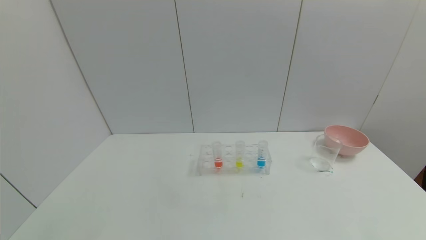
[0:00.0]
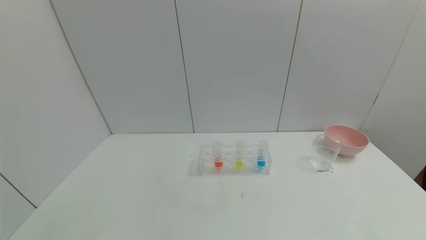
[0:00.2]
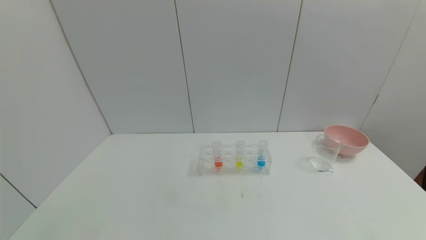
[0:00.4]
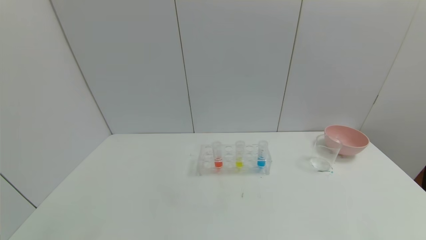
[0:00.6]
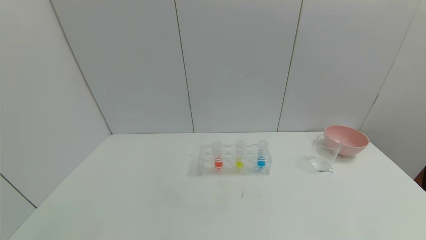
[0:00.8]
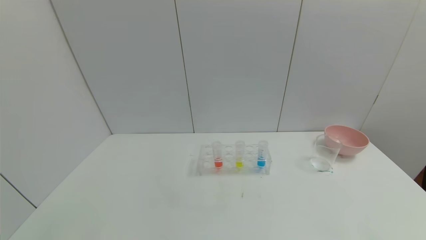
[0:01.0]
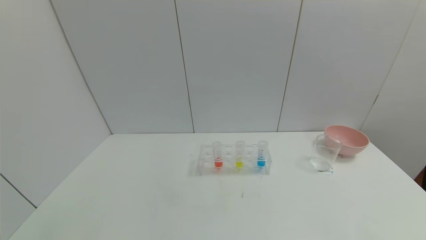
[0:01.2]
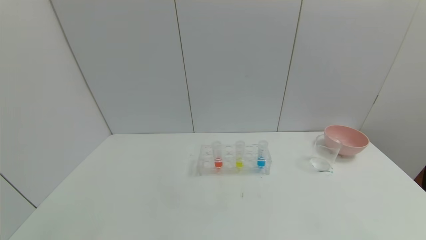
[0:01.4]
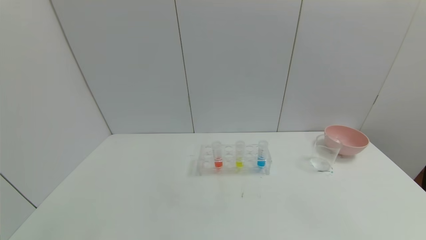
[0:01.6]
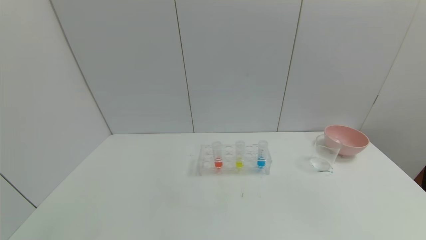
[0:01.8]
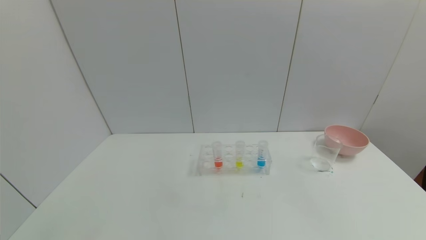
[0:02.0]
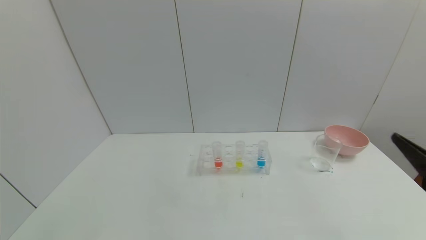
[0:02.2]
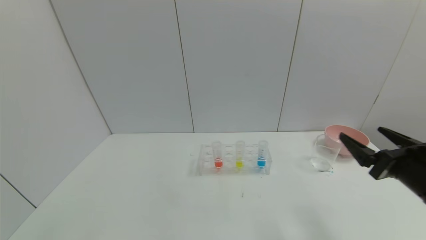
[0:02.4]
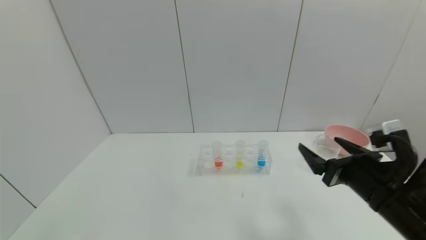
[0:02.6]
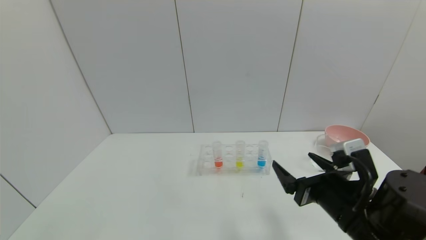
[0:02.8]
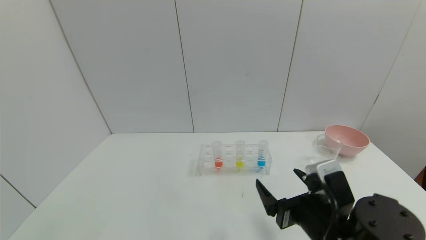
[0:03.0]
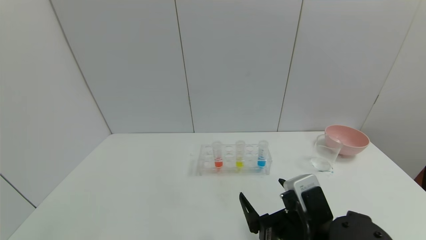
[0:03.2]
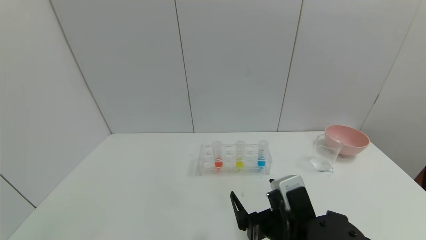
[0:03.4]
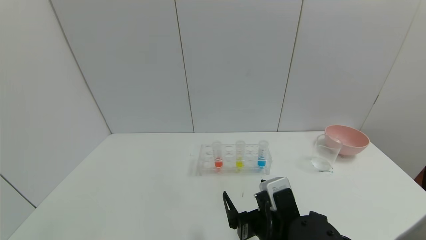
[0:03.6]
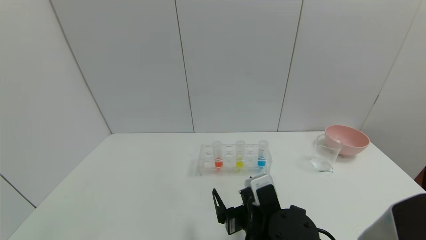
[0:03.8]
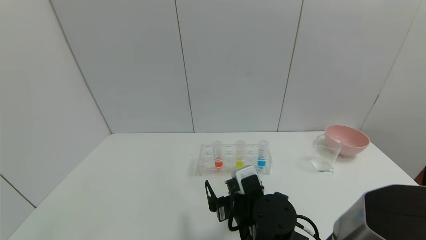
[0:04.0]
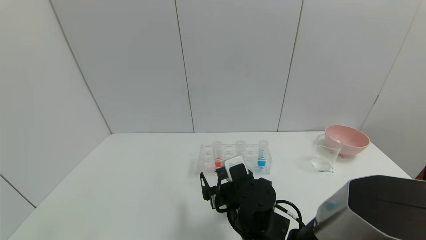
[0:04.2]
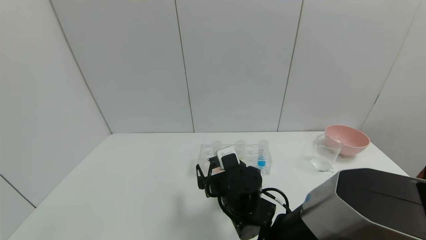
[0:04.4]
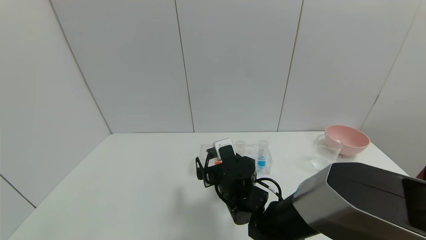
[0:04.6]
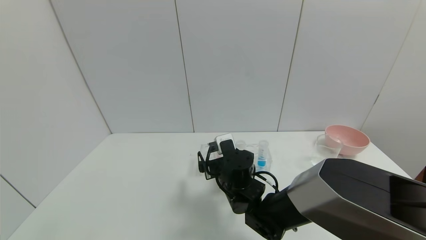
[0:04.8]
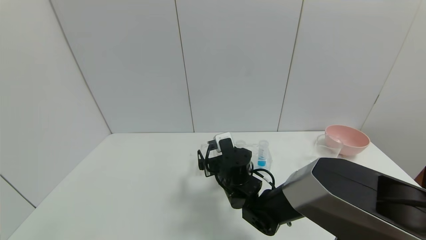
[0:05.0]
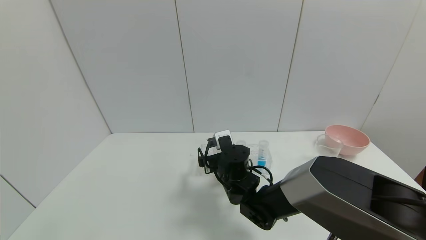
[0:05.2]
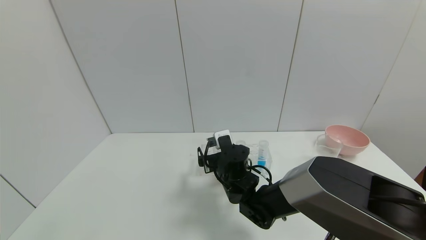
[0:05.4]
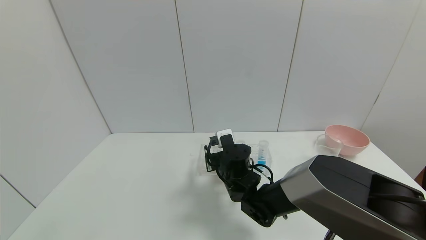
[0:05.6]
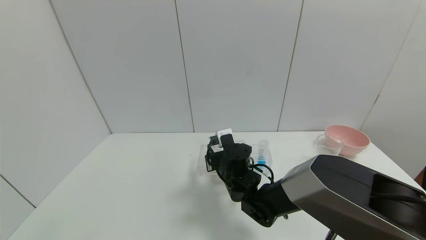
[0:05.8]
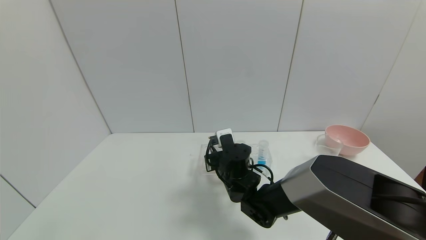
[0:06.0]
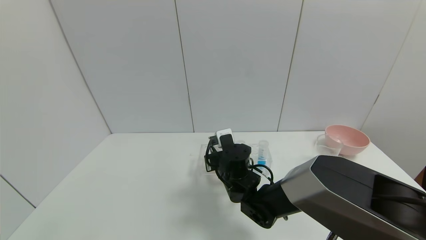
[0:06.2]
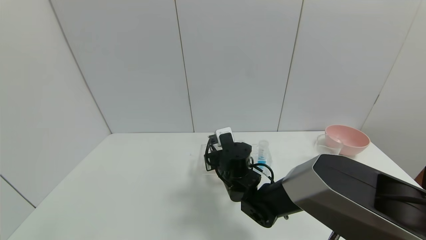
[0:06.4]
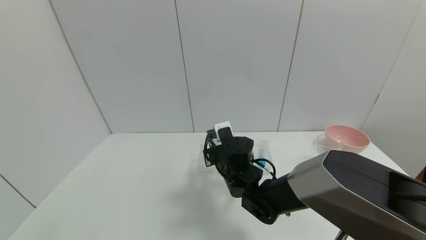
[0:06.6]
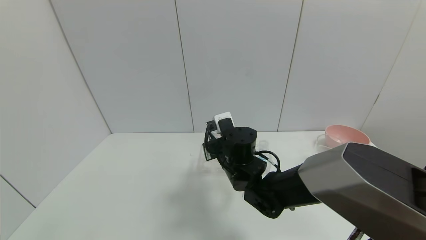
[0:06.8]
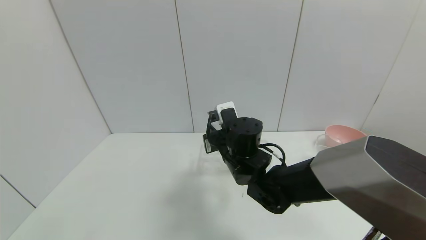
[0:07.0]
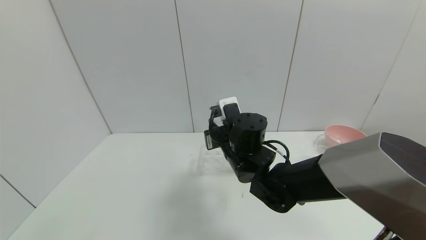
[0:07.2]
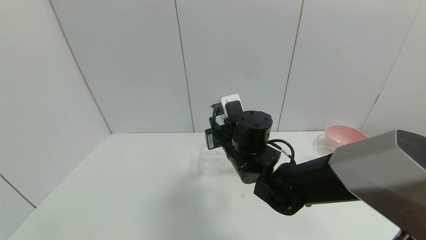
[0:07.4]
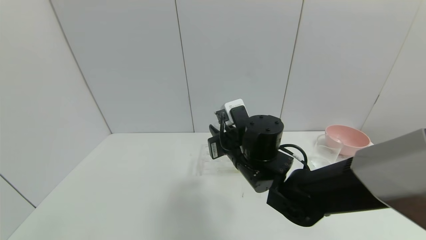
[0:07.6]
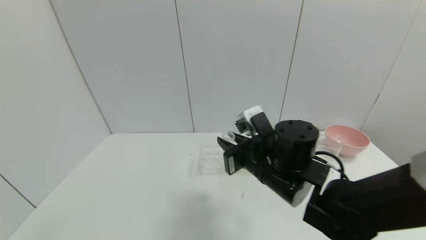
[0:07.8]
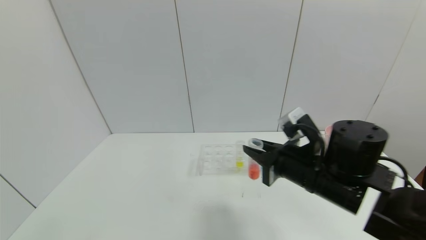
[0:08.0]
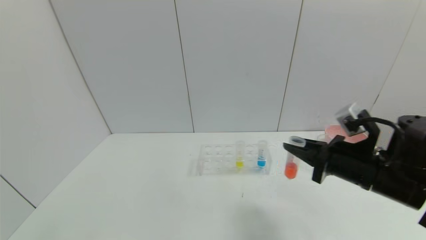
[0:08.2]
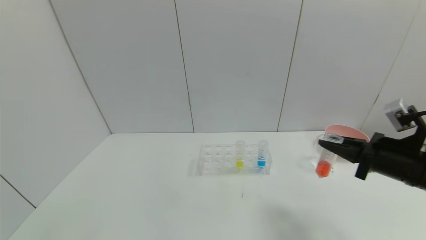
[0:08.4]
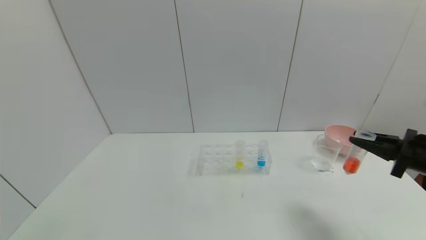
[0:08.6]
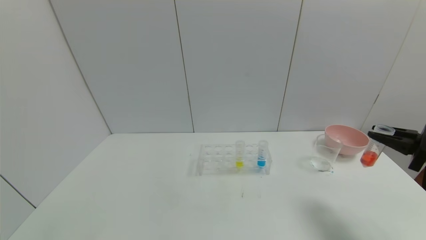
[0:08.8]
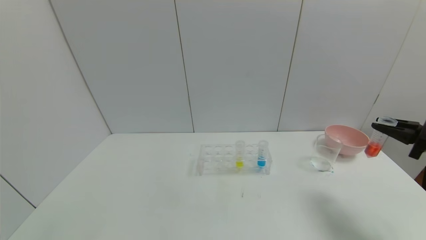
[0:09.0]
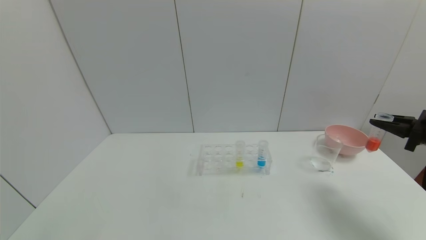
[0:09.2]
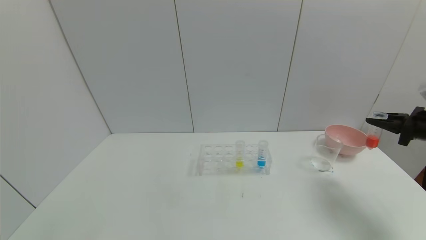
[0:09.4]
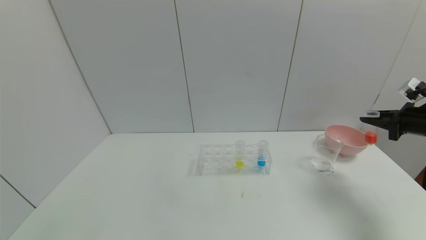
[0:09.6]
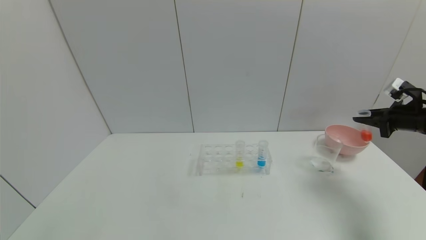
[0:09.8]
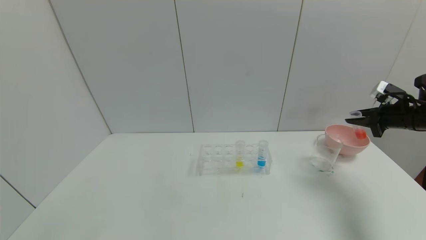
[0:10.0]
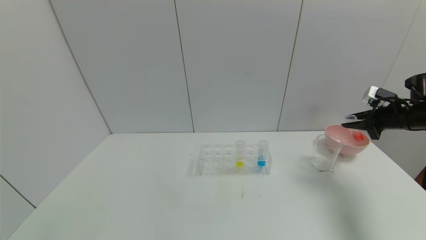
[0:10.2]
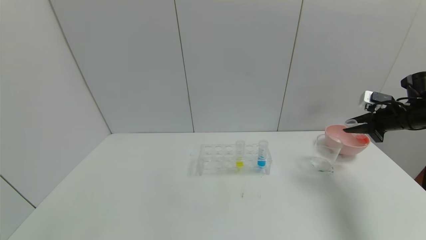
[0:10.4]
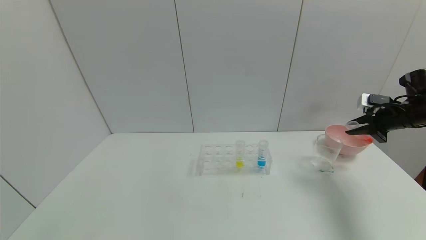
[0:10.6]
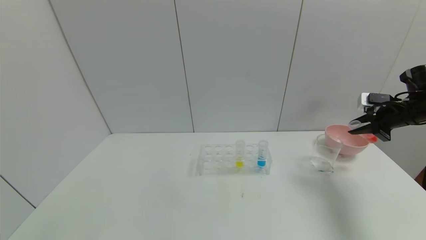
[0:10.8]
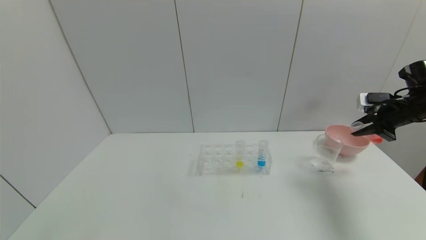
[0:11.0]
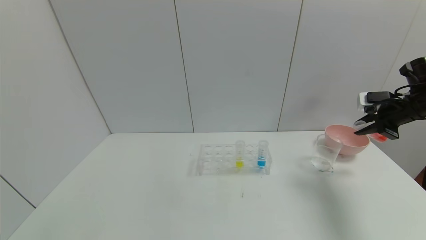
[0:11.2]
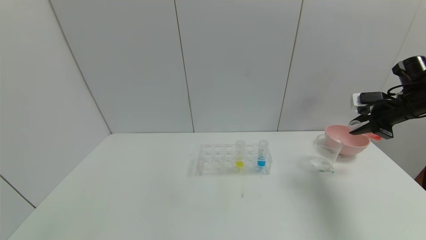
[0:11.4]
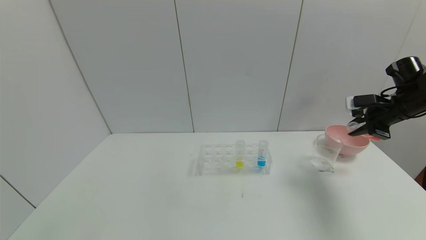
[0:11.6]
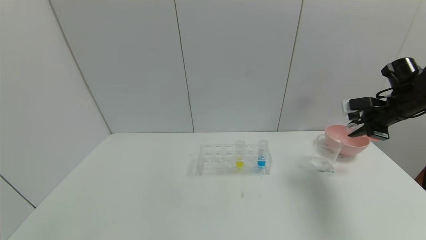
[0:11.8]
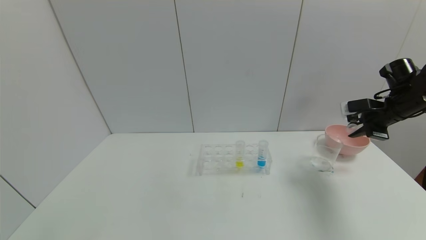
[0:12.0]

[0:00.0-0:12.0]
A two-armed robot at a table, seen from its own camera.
Task of the whole recording: pick up the test tube with red pigment and the test tube with blue pigment by grippers and pour them into the container.
Step, 0:00.0 to 0:06.2: Grasp the red reagent with the right gripper.
0:01.6 to 0:03.0: The right gripper travels to the left and forward by approximately 25 cm.
0:03.0 to 0:04.4: The right gripper moves to the left and forward, some 15 cm.
0:04.4 to 0:06.0: The right gripper moves forward, roughly 5 cm, and closes its fingers.
0:06.0 to 0:07.6: The right gripper shifts roughly 10 cm upward.
0:07.6 to 0:09.0: The right gripper heads to the right, covering roughly 40 cm.
0:09.0 to 0:10.4: The right gripper shifts about 15 cm forward.
0:10.4 to 0:12.0: The right gripper shifts by some 5 cm.

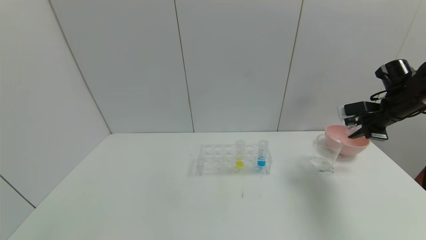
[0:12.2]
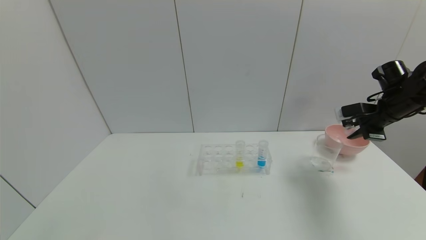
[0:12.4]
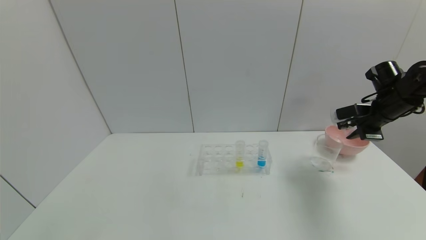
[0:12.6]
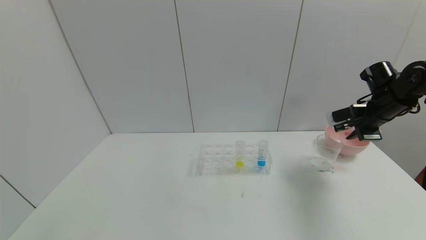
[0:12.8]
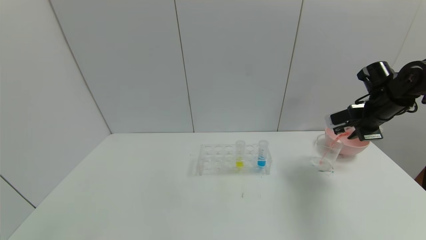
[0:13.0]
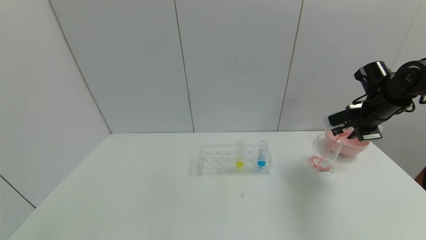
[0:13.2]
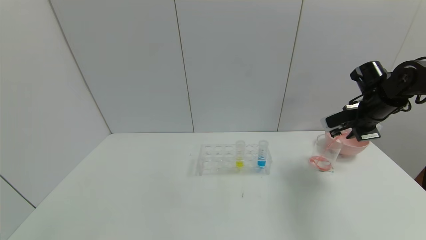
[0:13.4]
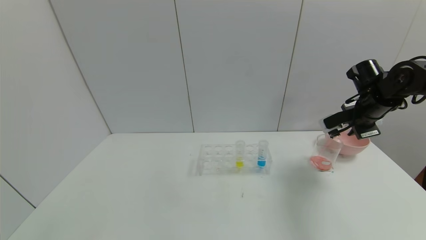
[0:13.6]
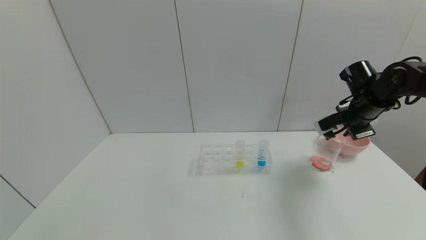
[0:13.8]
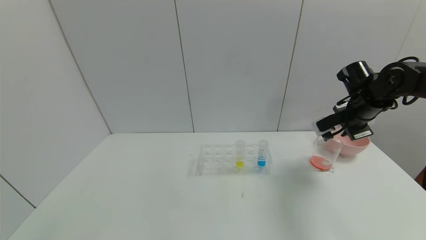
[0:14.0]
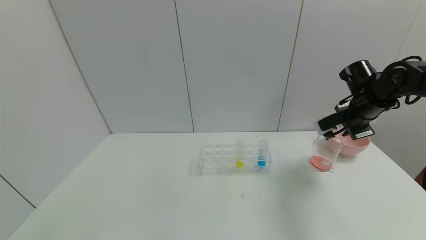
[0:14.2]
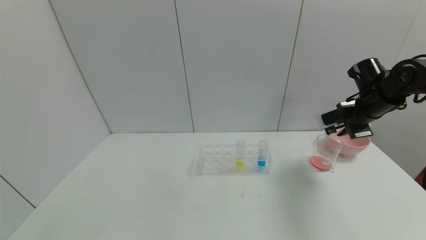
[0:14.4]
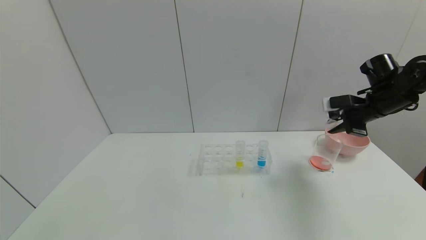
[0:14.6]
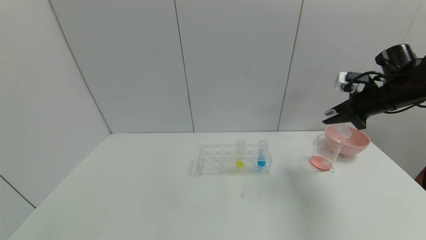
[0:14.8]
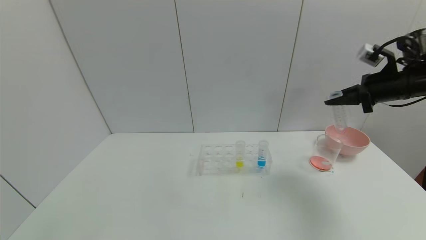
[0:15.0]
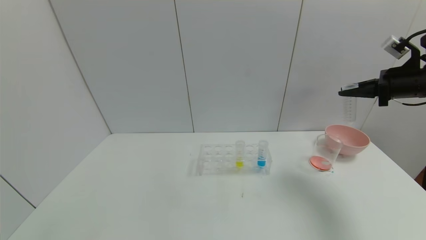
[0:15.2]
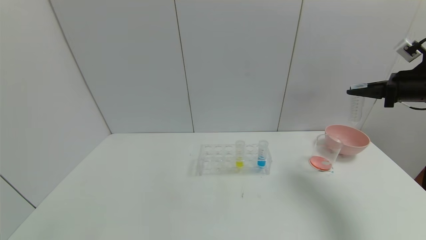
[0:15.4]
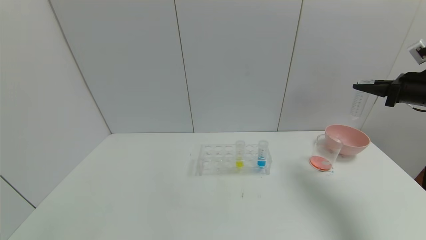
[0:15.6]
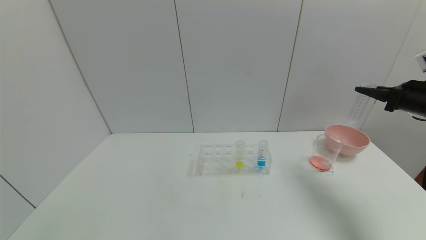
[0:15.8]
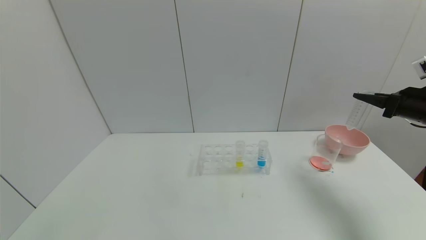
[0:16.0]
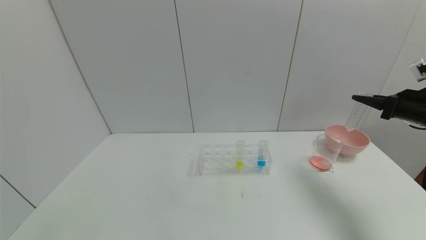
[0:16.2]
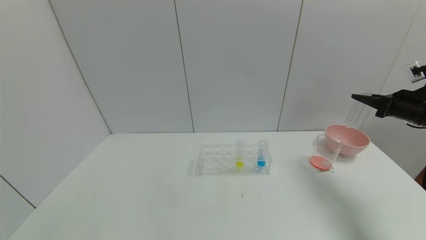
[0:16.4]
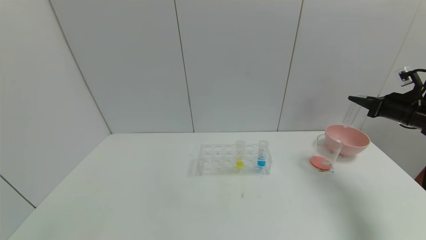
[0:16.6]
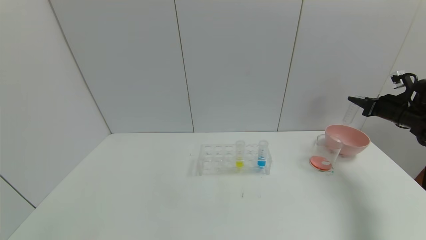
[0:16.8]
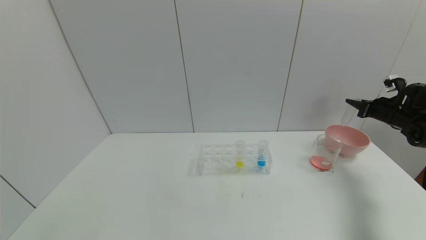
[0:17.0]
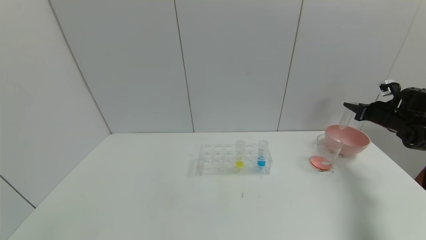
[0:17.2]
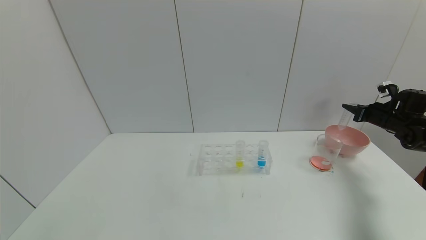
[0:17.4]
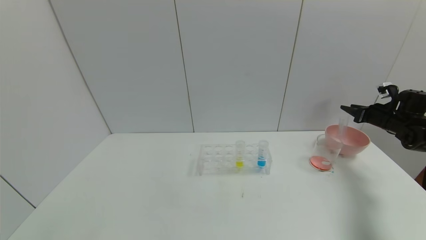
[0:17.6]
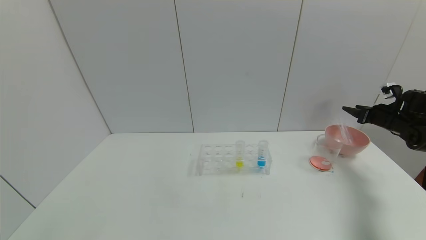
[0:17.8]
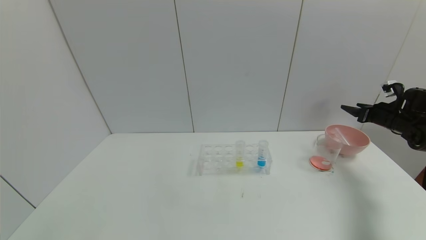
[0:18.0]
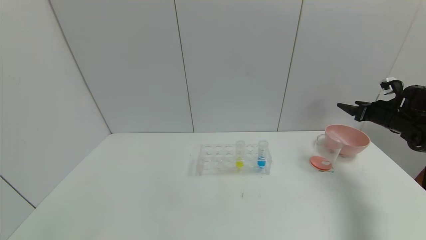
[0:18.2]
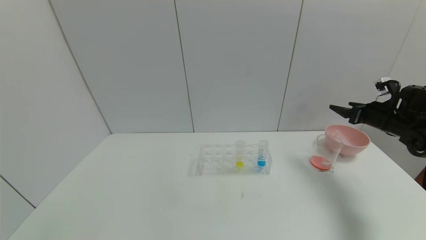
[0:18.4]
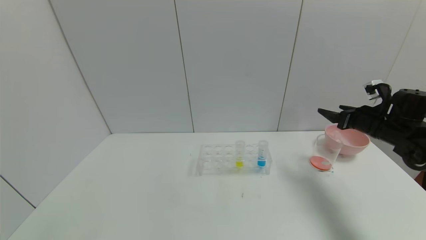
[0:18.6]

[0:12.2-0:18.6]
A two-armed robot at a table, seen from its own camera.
Task of the whole recording: pick up the test tube with red pigment and the test tube with blue pigment by grippers and pour them into the container.
Step, 0:14.0 to 0:17.8: Place the test tube into the bowl with the right gripper.
0:12.2 to 0:13.8: The right gripper travels to the left by some 5 cm.
0:13.8 to 0:15.4: The right gripper goes approximately 10 cm to the right and upward.
0:15.4 to 0:17.0: The right gripper shifts some 15 cm downward, forward and to the right.
0:17.0 to 0:18.6: The right gripper moves to the left and backward, about 15 cm, and opens.
